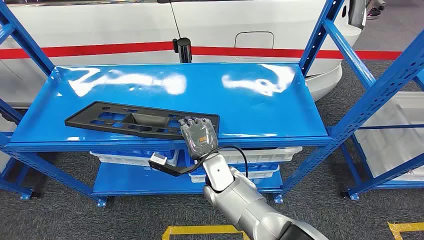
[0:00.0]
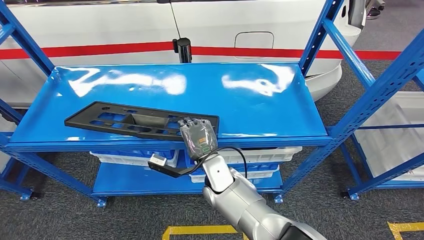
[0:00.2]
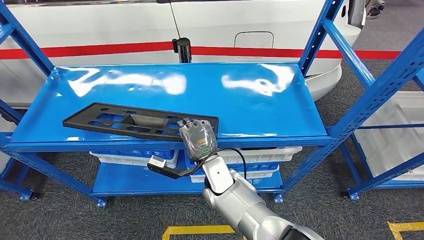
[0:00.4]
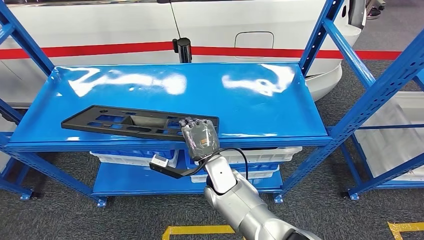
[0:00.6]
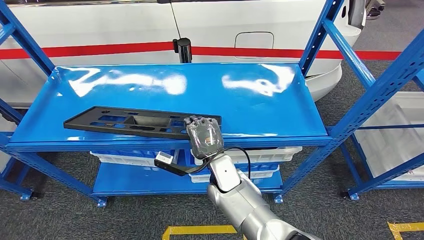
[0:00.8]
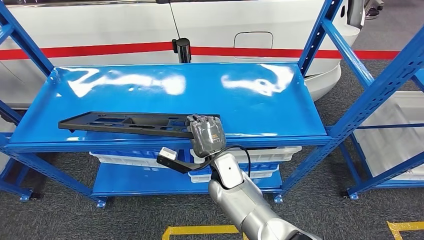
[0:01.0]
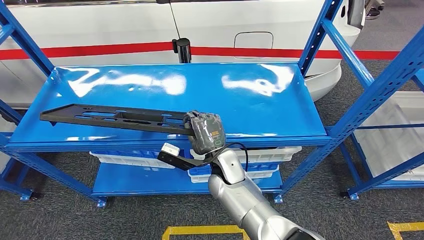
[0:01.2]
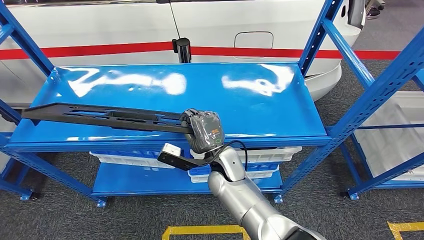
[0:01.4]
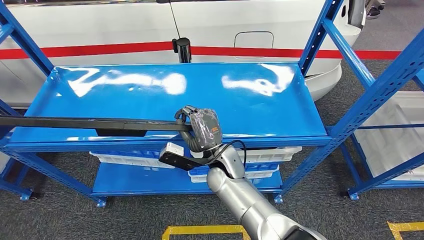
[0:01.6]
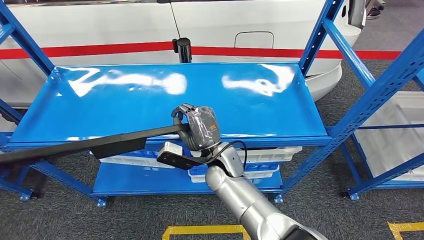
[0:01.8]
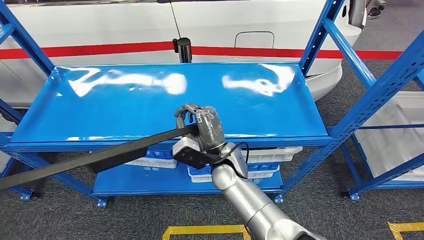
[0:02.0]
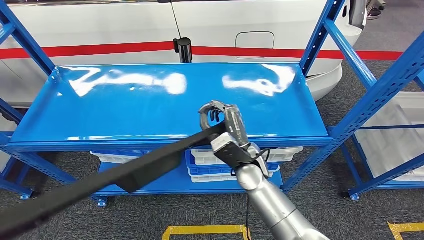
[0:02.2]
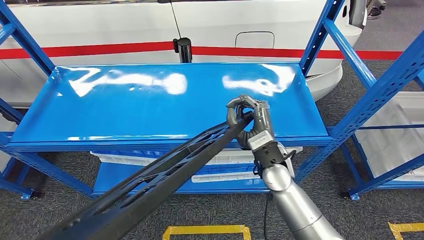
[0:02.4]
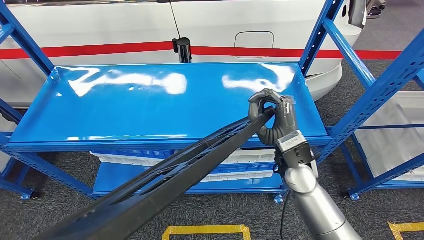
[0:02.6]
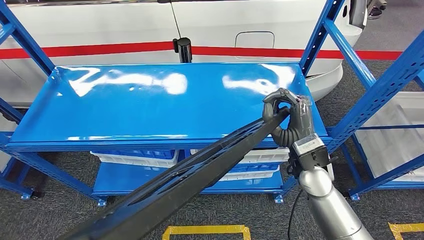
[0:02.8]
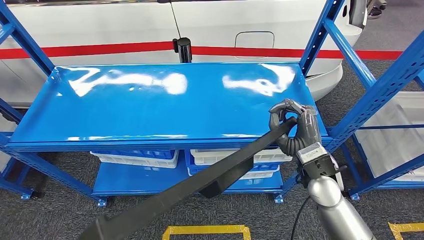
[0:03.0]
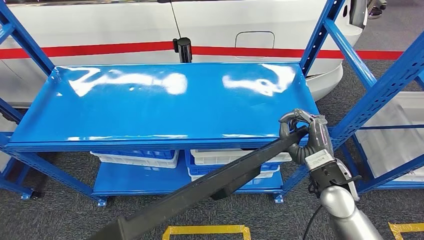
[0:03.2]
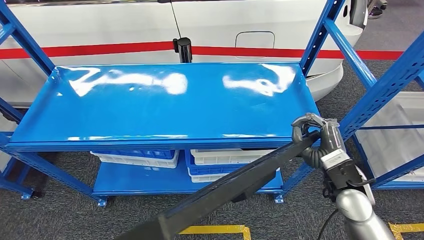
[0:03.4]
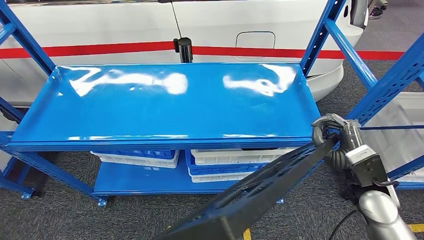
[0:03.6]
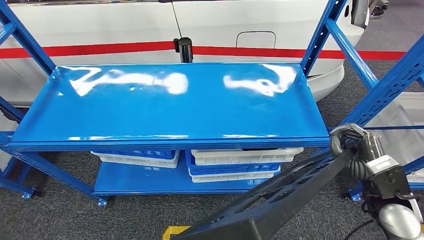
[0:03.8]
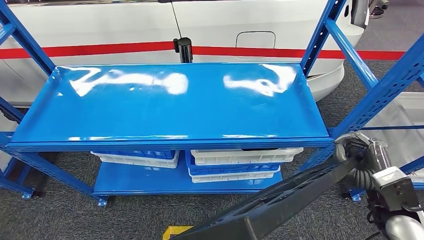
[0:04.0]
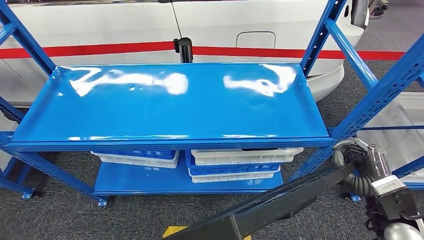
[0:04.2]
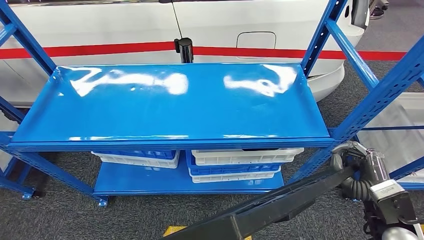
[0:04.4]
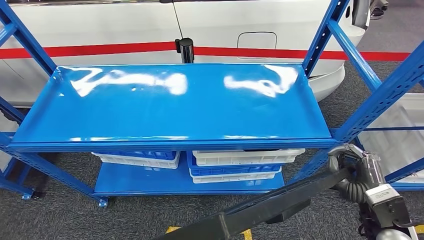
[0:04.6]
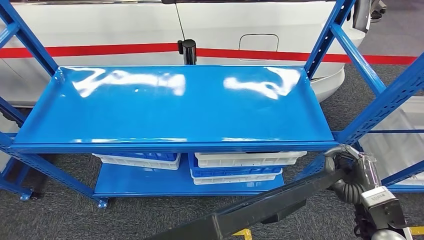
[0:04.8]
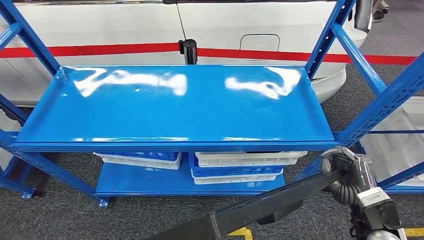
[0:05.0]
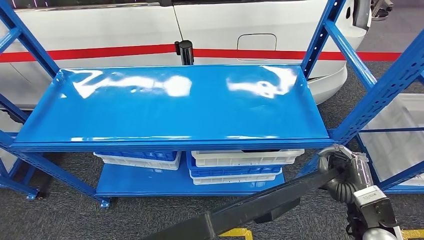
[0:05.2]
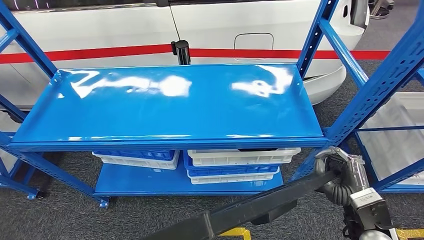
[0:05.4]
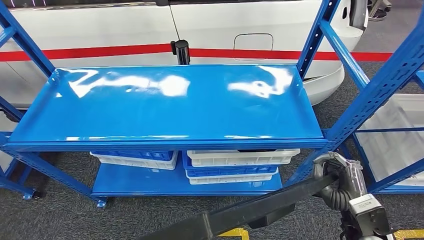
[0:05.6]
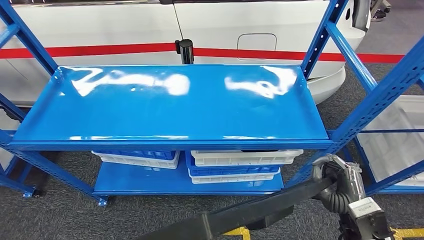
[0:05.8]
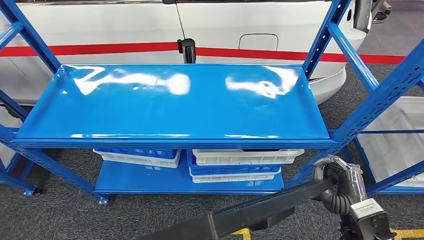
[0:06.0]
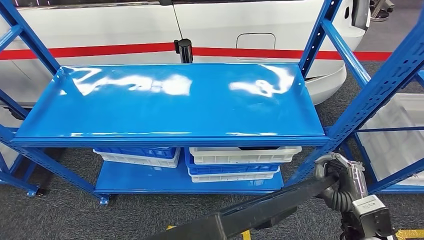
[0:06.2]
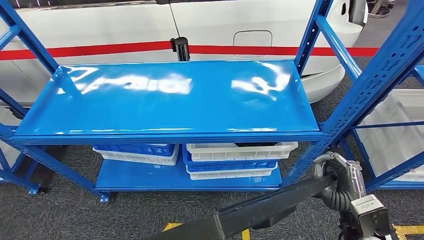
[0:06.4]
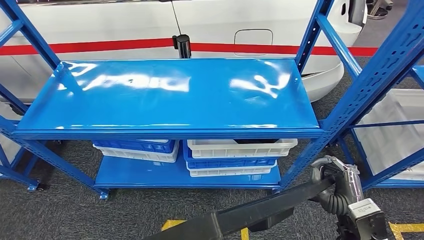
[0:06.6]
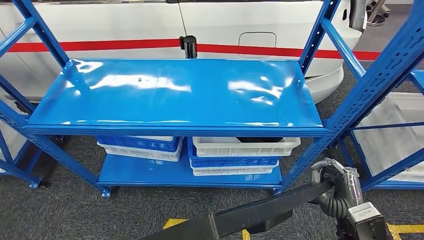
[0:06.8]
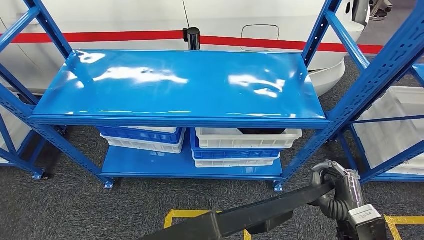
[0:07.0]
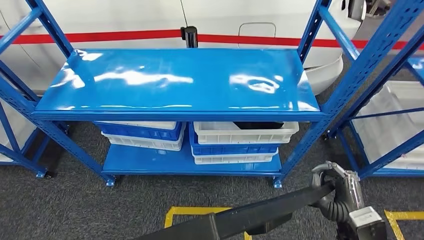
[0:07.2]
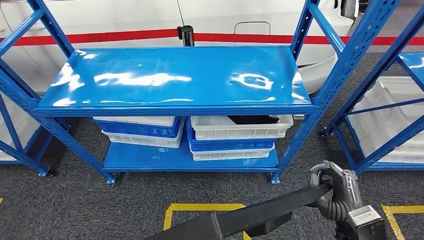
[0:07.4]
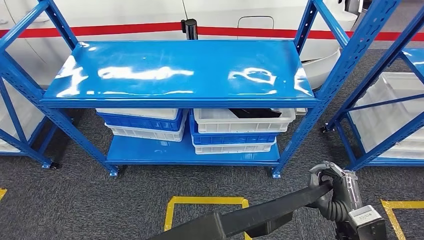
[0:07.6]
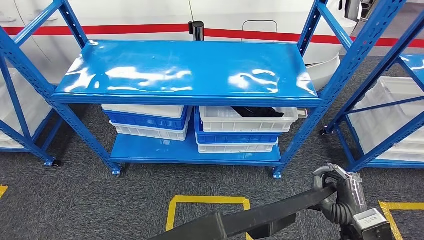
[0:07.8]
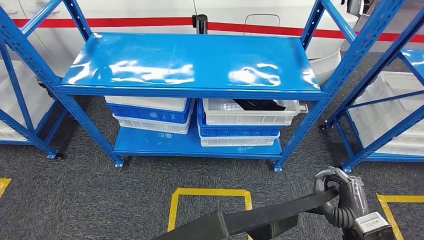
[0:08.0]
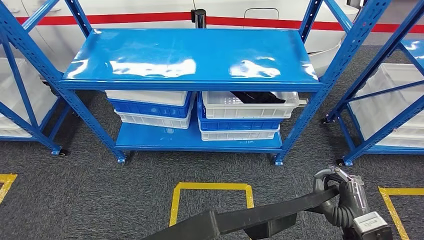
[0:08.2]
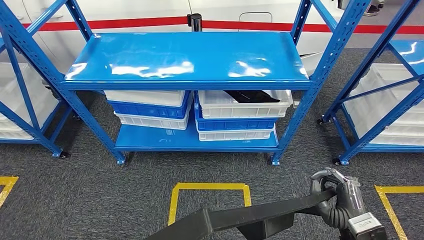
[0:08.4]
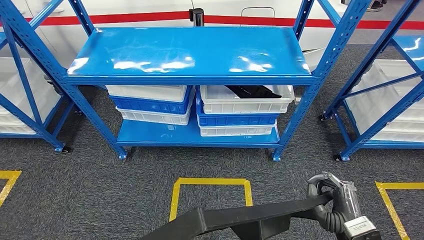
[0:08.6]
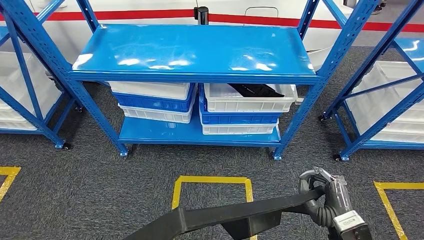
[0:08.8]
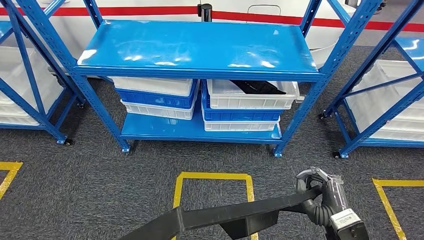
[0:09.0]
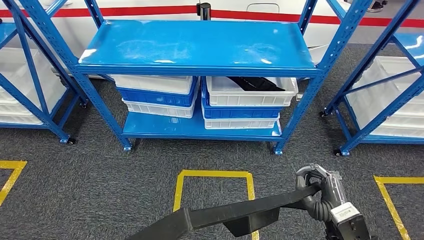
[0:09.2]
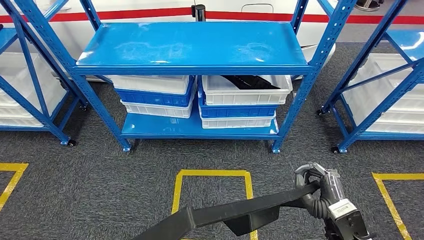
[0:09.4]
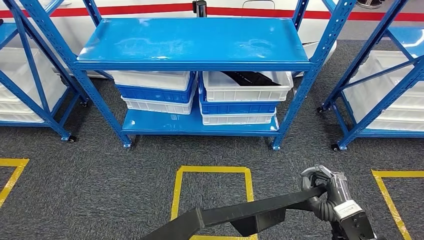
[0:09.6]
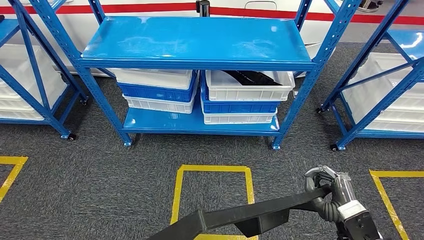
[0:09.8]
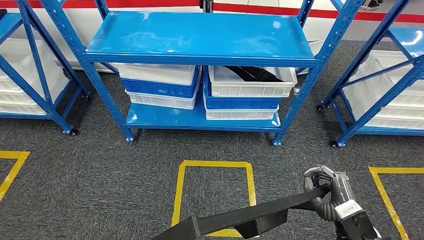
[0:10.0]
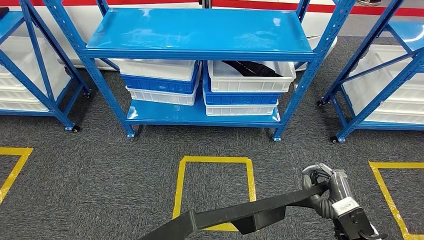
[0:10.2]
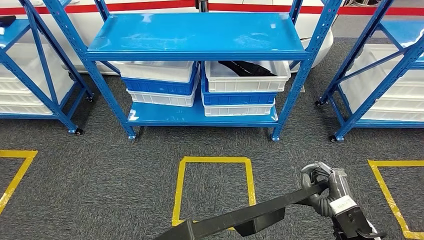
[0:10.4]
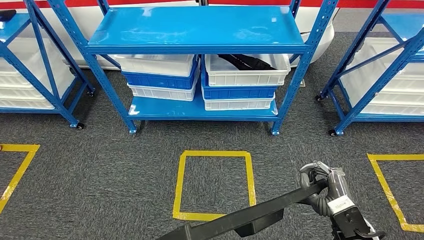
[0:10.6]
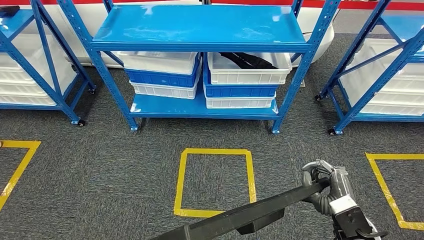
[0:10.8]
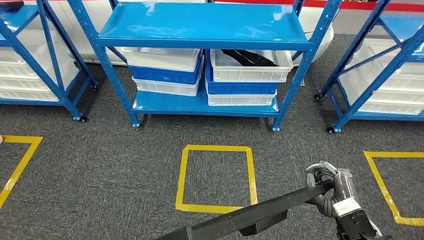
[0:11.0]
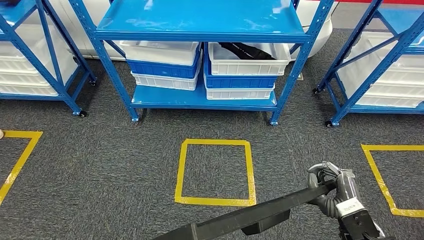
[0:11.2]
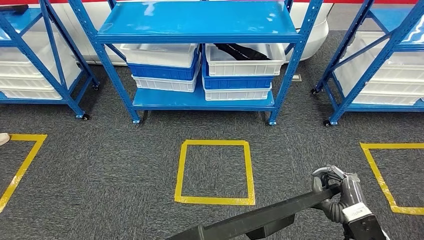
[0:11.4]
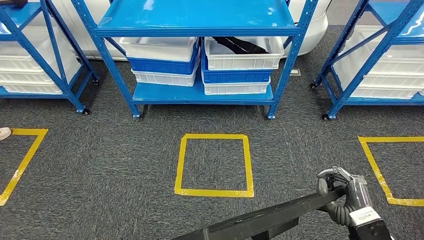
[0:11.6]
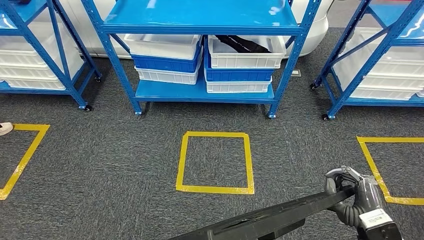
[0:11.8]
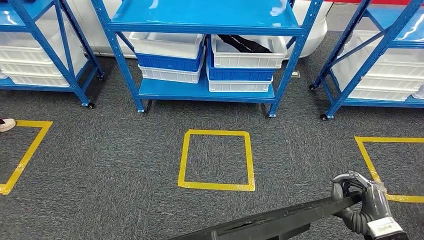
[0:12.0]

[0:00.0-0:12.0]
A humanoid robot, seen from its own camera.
Step, 0:00.0 to 0:09.2: Pick up the large material from the shelf.
0:01.6 to 0:03.0: The right hand shifts some 25 cm to the right.
0:03.0 to 0:04.4: The right hand shifts some 15 cm to the right and backward.

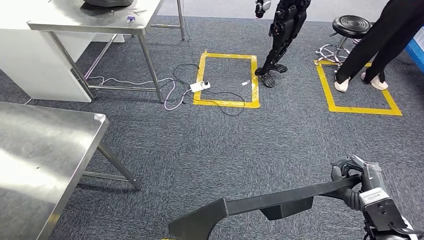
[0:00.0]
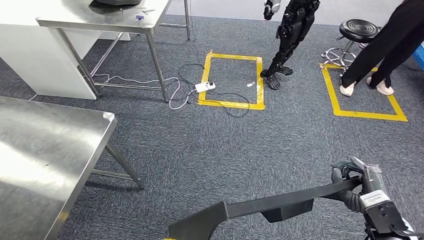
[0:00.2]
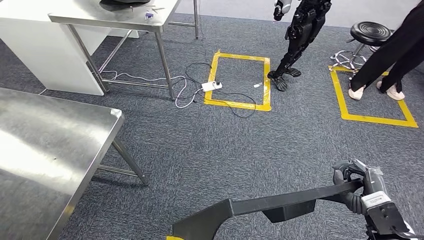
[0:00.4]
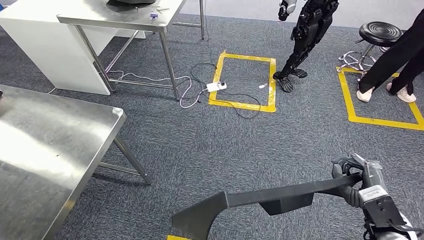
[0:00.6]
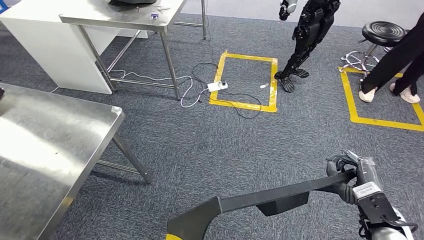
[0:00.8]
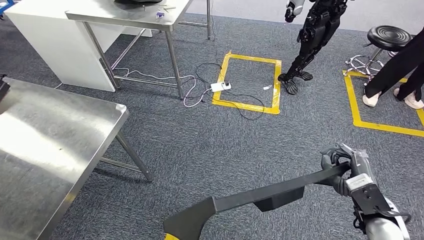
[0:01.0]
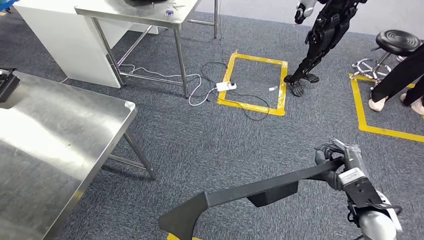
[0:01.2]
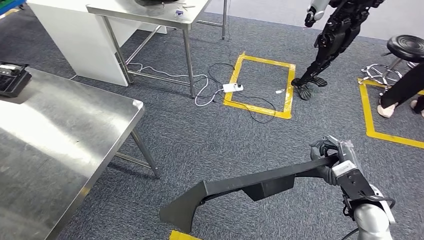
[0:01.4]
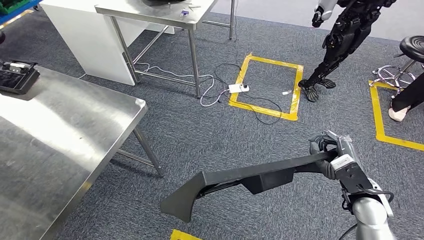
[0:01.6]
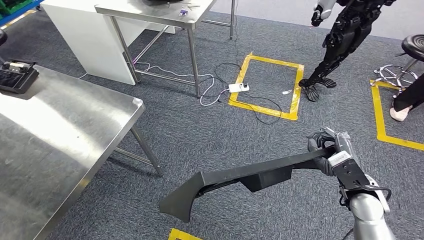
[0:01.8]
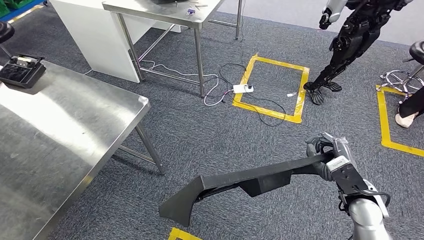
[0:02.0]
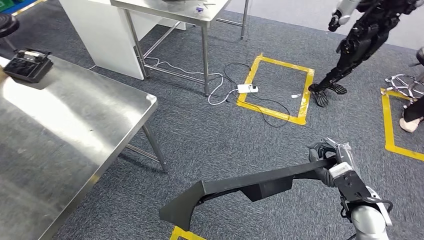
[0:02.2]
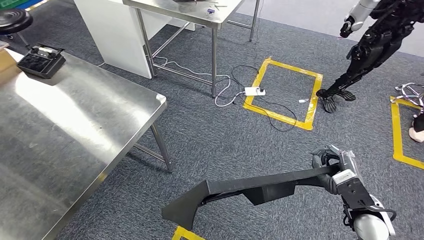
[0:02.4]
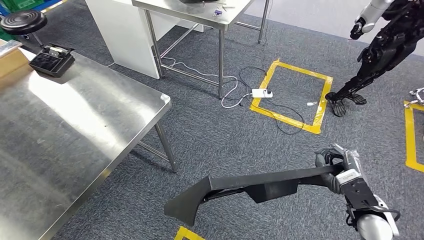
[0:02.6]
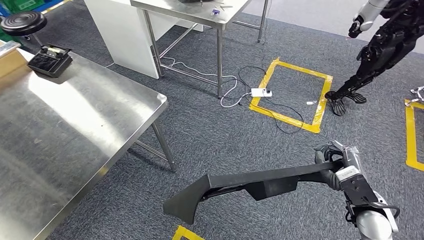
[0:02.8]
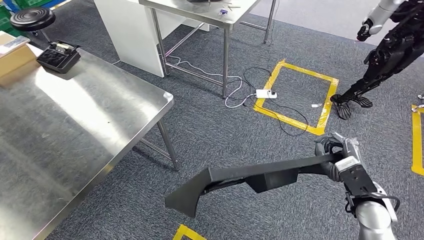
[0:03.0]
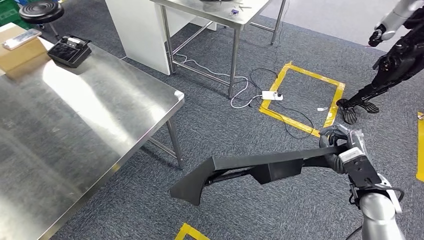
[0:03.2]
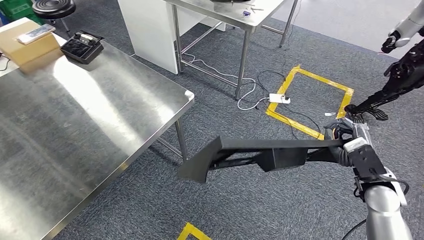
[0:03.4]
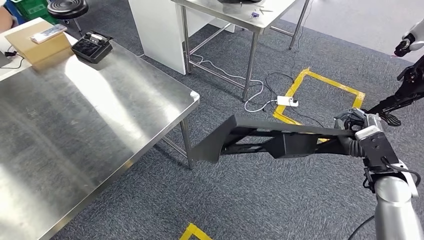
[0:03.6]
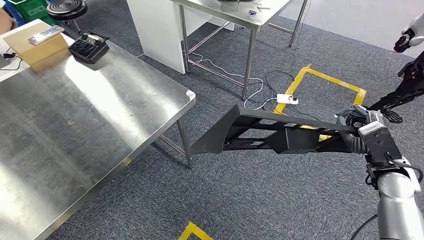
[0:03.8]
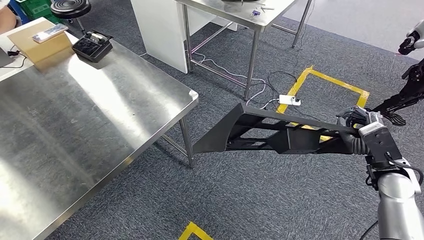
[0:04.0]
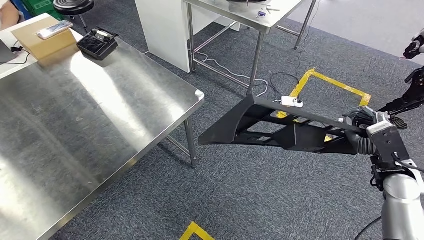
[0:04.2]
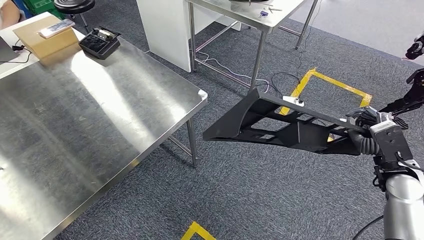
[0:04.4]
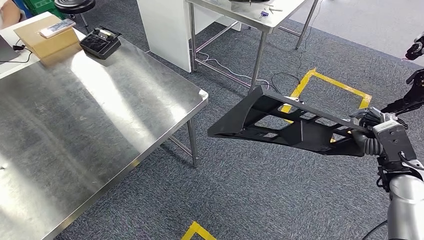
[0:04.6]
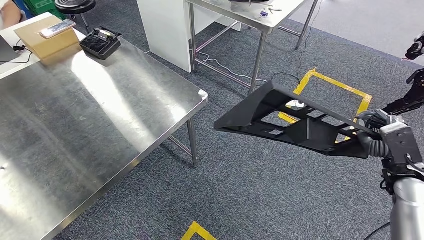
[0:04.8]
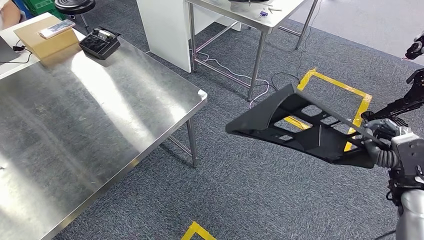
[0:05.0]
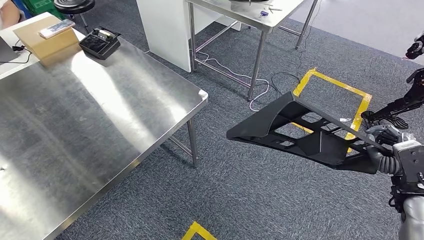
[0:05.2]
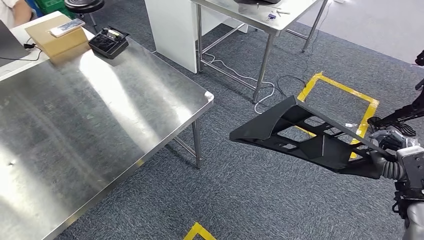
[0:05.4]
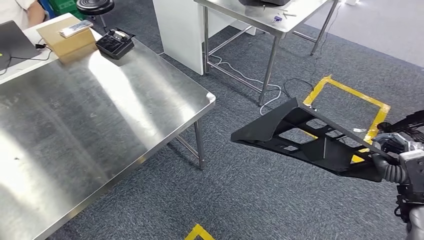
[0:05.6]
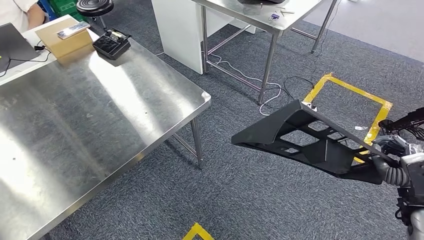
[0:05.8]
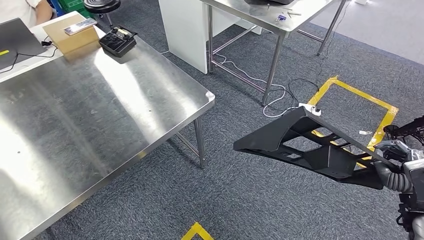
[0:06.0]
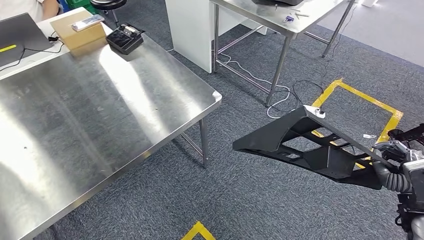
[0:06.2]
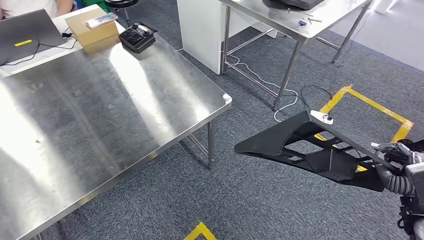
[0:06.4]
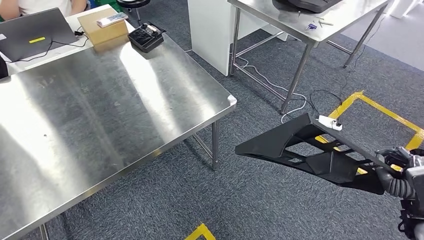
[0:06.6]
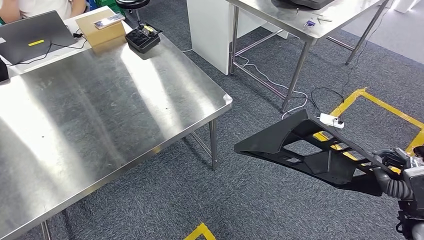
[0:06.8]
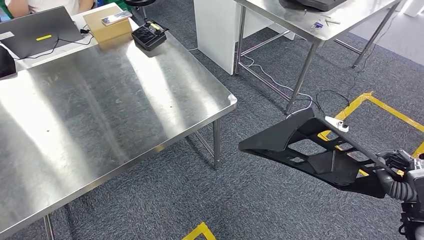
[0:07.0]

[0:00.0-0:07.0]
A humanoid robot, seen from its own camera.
Step, 0:00.0 to 0:02.4: Move the large material to the workbench.
